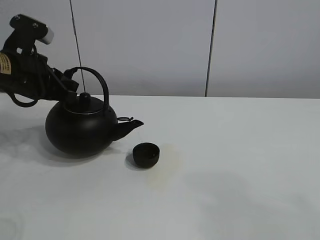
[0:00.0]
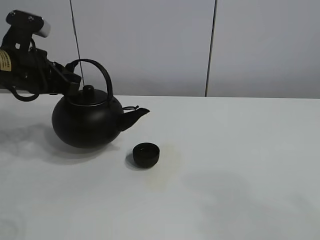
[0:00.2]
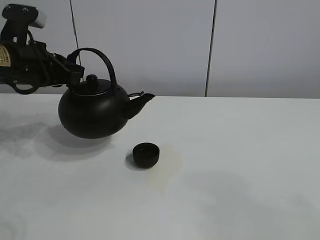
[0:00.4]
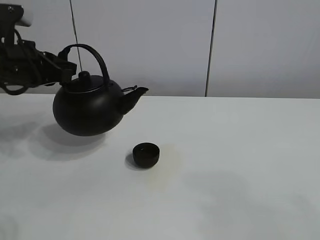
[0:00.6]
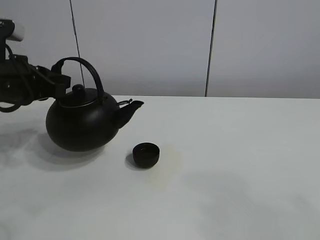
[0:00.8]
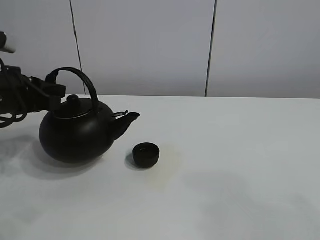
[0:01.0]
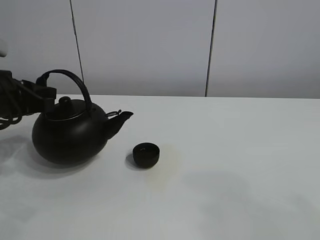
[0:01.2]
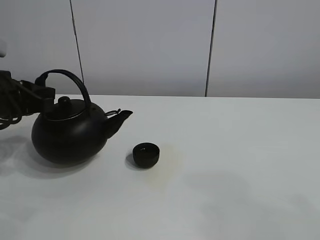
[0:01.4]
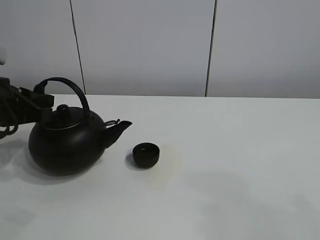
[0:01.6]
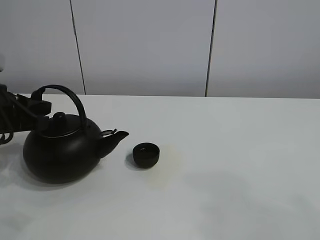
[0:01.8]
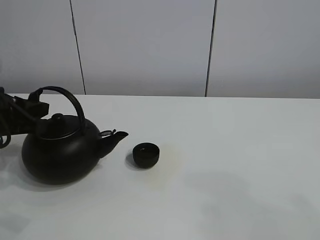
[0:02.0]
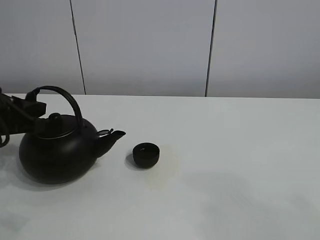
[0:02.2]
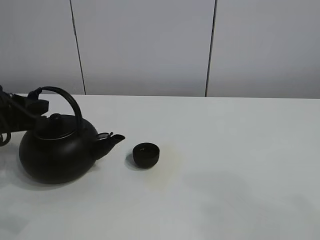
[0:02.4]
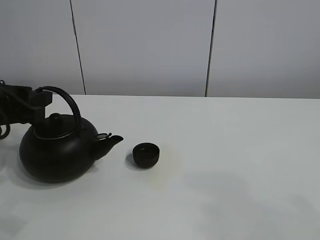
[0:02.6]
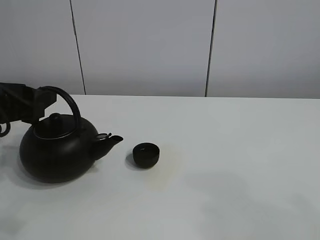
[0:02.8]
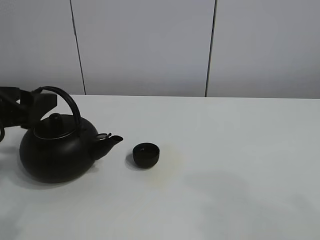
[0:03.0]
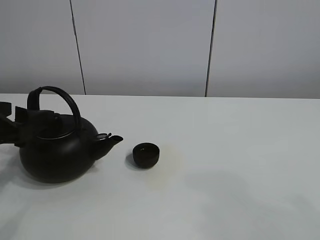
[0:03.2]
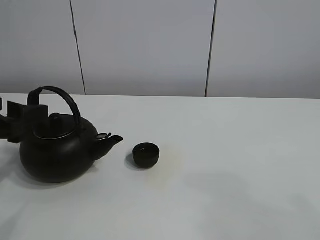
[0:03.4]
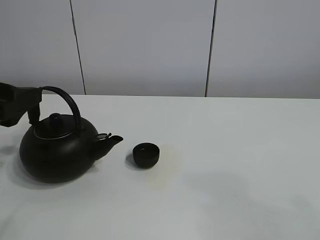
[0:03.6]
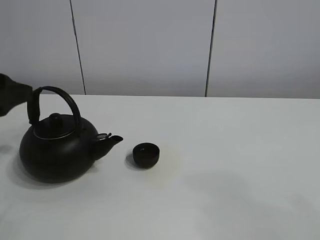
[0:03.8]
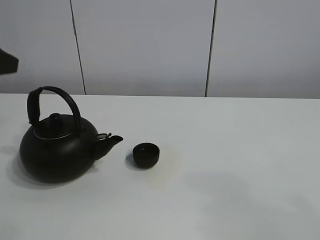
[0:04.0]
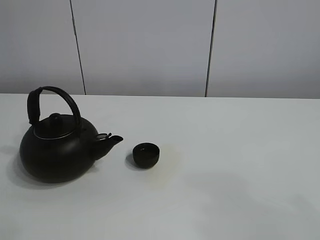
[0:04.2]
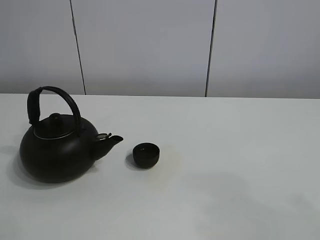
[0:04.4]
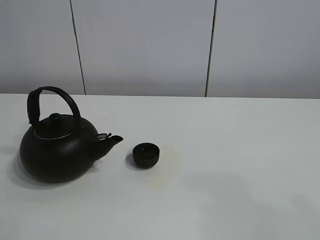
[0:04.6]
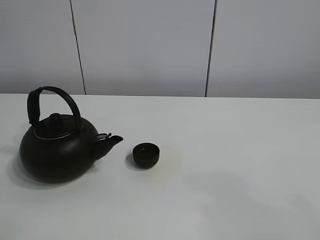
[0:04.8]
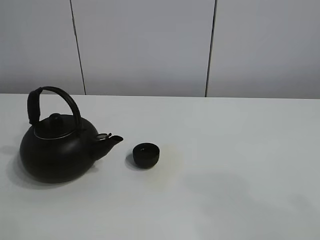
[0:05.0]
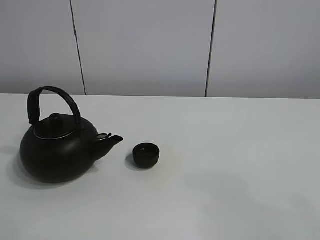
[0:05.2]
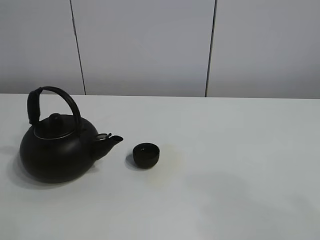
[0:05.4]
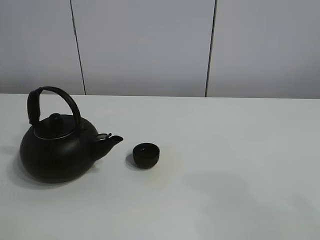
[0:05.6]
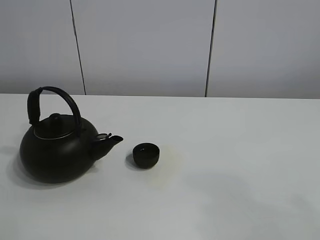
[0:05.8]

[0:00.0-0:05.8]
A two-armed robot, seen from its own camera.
Task of the whole recording: pour tea into the teacup.
0:00.0 to 0:01.4: The left gripper ends up some 5 cm from where it was.
0:01.4 to 0:02.8: The left gripper opens its fingers.
0:02.8 to 0:04.4: The left gripper goes roughly 20 cm upward.

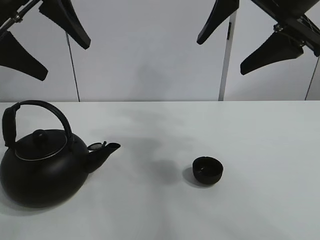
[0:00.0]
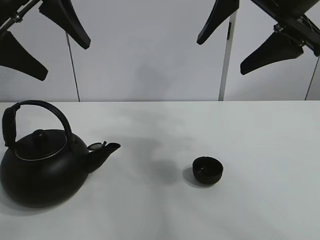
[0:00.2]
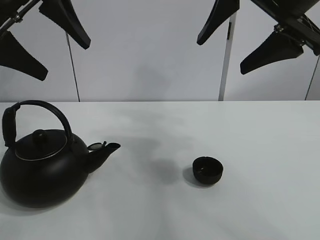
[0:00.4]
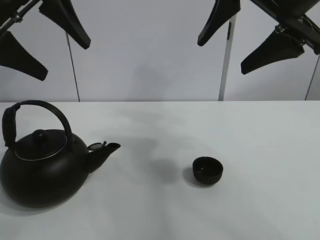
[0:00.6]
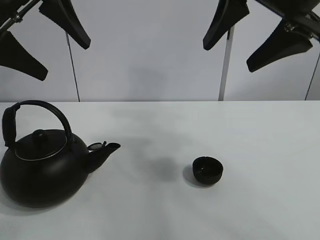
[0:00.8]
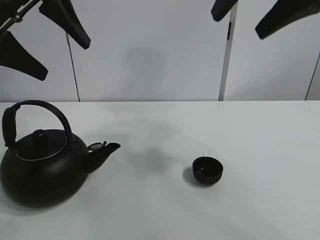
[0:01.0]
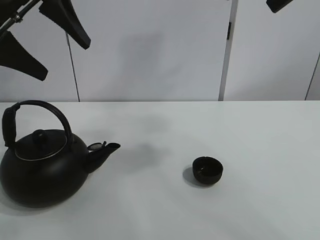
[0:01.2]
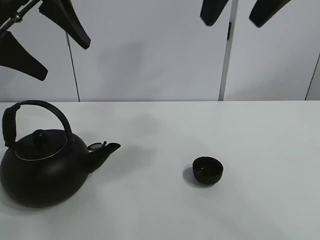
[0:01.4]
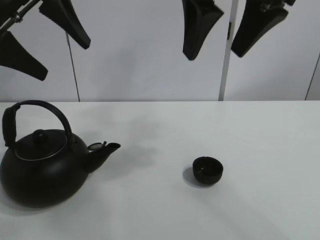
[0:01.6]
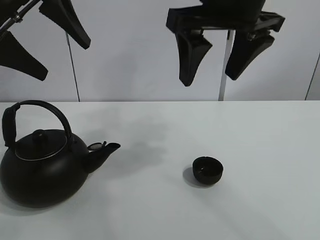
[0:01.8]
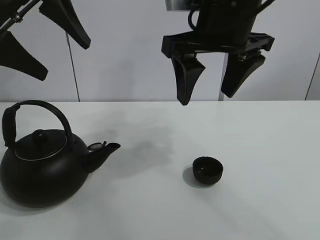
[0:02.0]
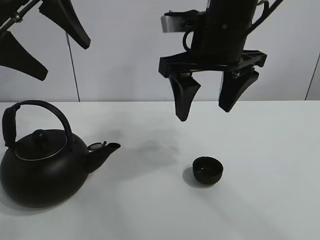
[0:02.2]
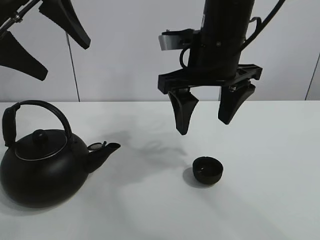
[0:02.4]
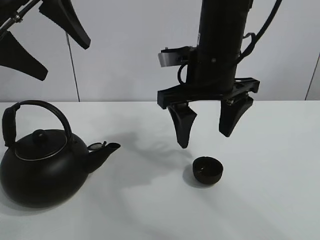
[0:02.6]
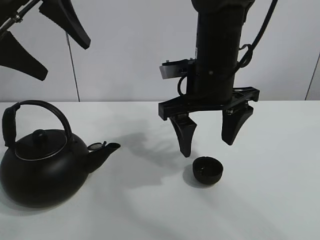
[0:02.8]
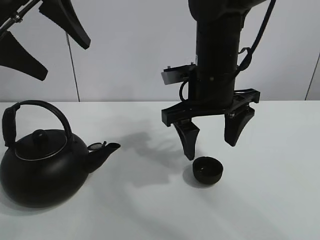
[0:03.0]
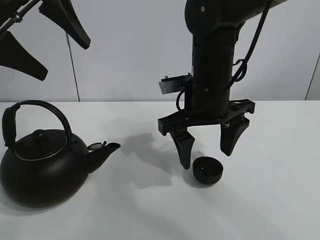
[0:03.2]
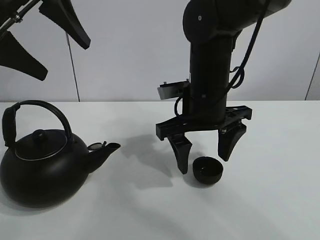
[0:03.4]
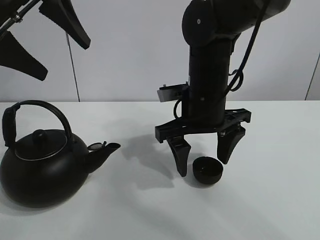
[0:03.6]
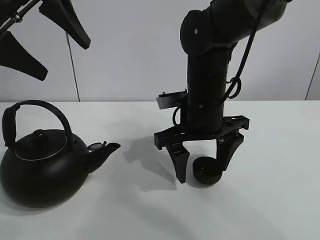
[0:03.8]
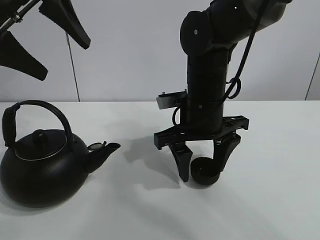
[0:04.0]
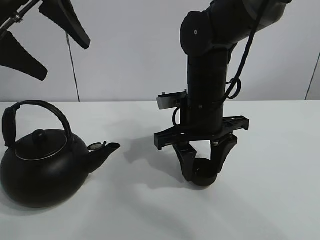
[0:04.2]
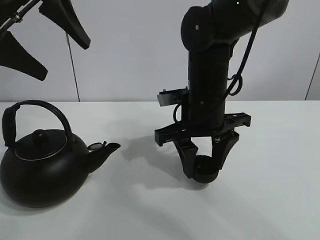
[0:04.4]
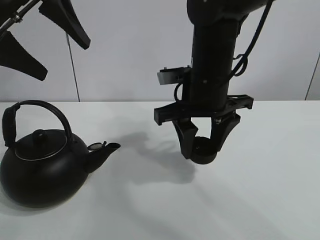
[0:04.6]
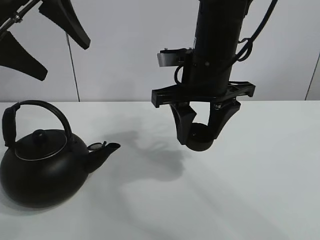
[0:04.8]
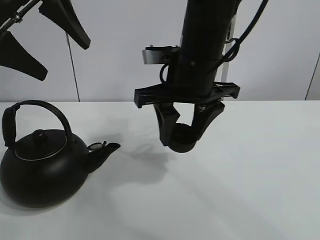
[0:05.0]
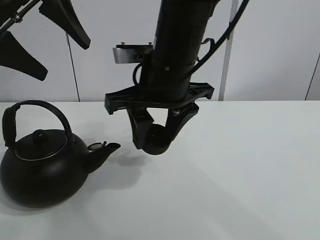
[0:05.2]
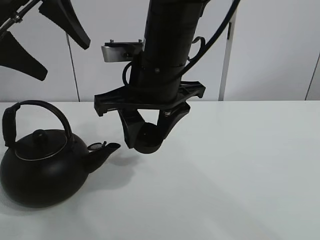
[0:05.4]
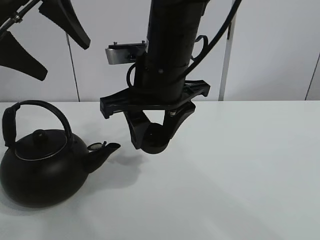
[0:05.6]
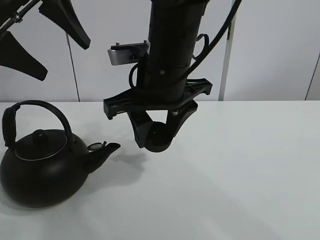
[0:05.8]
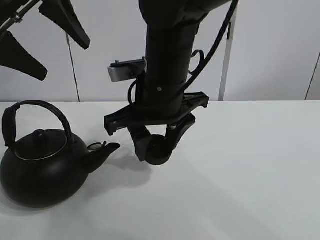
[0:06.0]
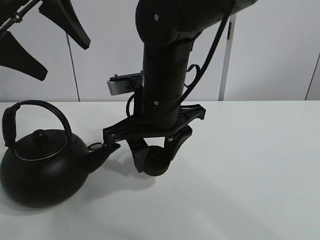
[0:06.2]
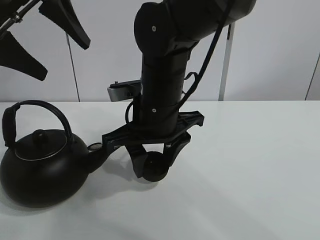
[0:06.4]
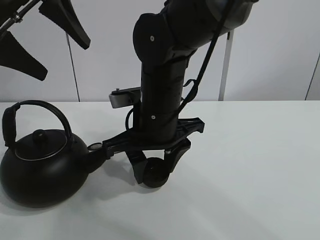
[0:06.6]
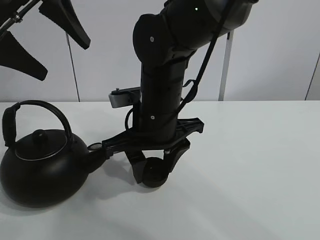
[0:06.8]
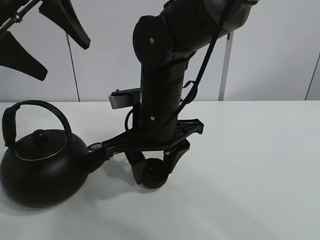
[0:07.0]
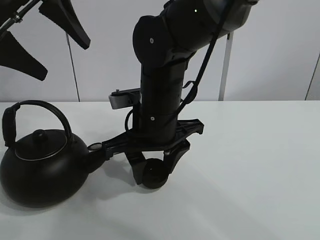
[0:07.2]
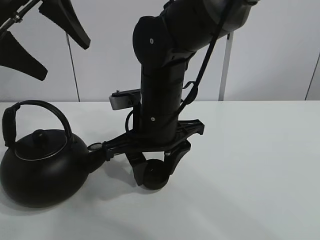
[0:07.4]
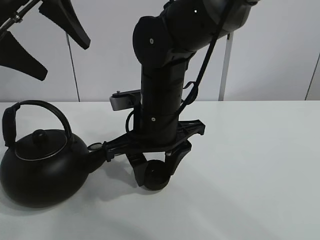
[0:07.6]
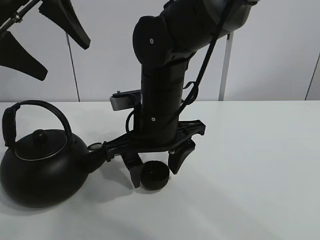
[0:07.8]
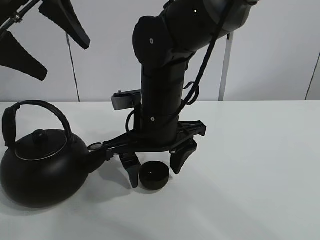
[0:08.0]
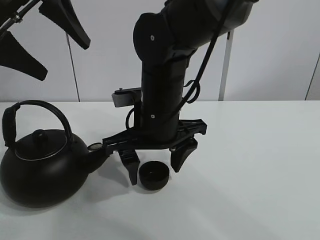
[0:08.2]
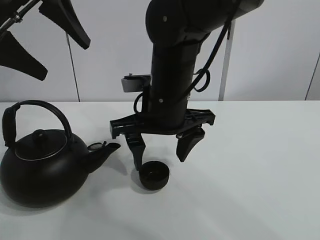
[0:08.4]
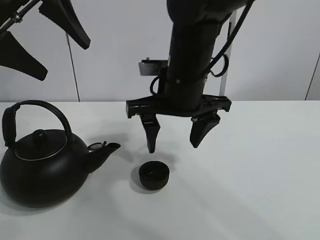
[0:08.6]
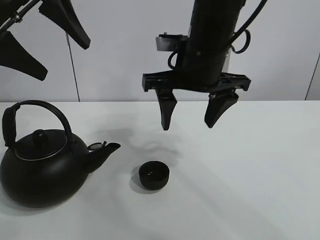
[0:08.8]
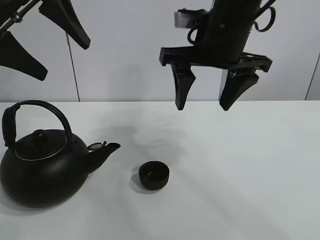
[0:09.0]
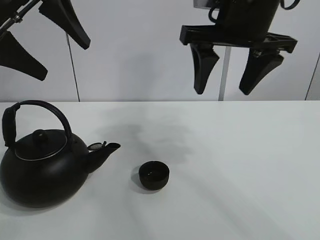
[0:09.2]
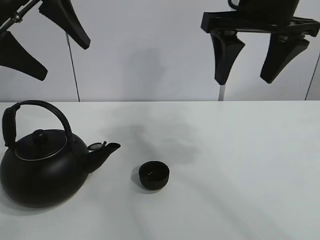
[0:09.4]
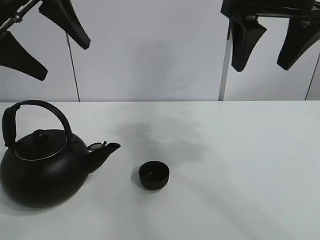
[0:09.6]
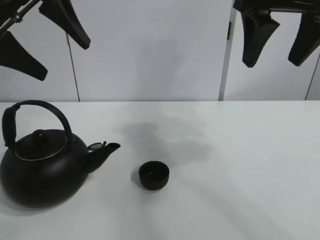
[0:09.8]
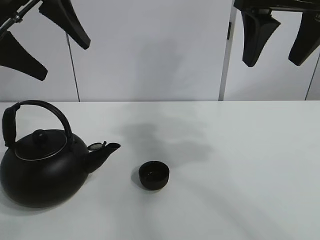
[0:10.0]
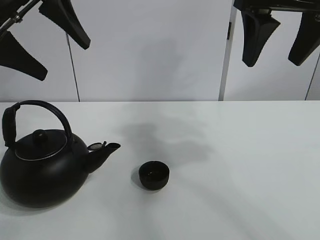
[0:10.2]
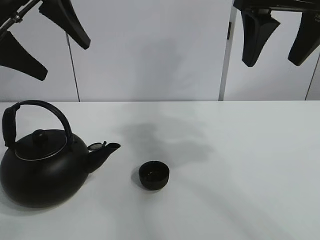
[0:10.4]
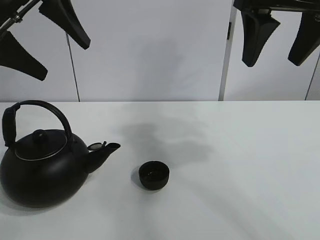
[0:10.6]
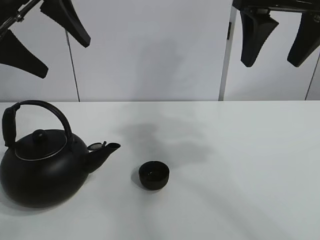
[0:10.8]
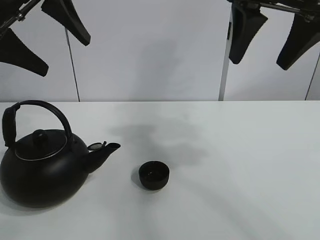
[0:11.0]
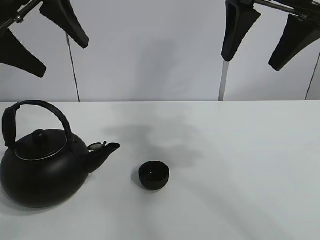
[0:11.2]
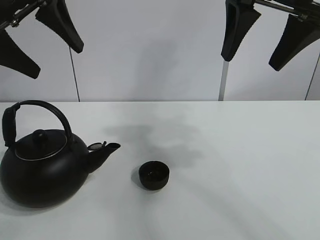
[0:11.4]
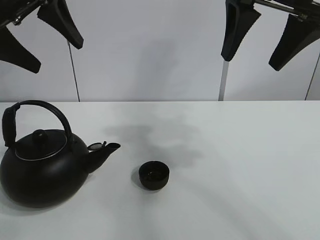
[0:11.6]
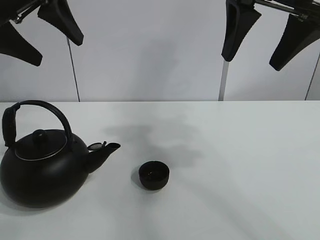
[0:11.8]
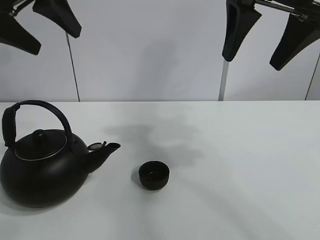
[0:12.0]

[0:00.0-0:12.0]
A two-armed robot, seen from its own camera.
Task of the whole recording: pour tea into the teacup.
Step, 0:00.0 to 0:04.0: Pick up the teacup with the right gripper.
Step, 0:04.2 to 0:08.0: Place the teacup in the center of view with the right gripper.
0:01.6 to 0:03.0: The right gripper is displaced downward by some 15 cm.
0:03.0 to 0:04.4: The right gripper closes.
0:04.4 to 0:06.0: The right gripper moves to the left, approximately 5 cm.
0:06.0 to 0:07.6: The grippers make only small movements.
0:07.6 to 0:09.0: The right gripper moves upward and to the right, some 15 cm, and opens its fingers.
0:09.0 to 0:10.4: The right gripper travels to the right and upward by roughly 10 cm.
0:10.4 to 0:12.0: The grippers make only small movements.

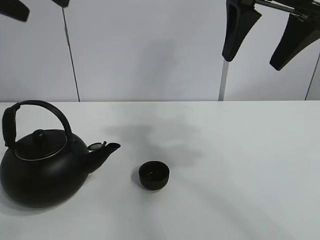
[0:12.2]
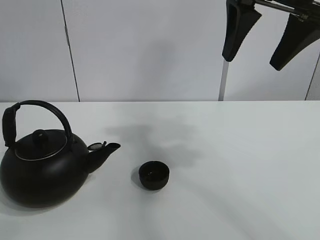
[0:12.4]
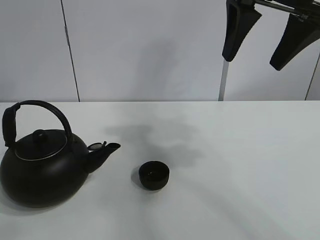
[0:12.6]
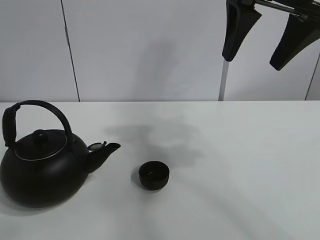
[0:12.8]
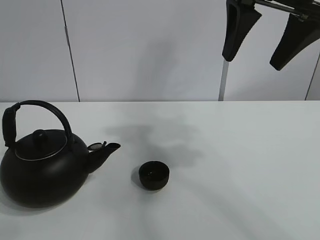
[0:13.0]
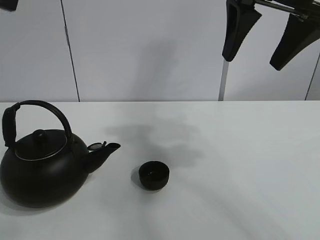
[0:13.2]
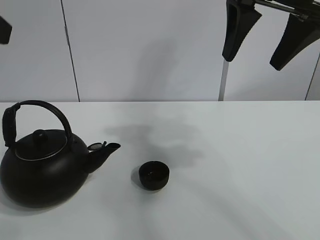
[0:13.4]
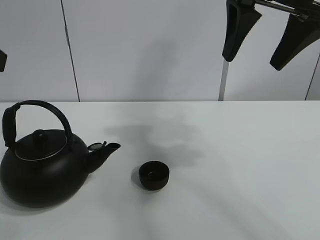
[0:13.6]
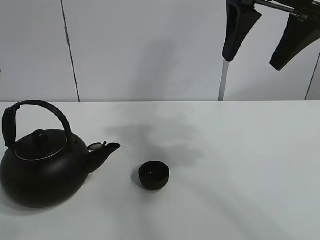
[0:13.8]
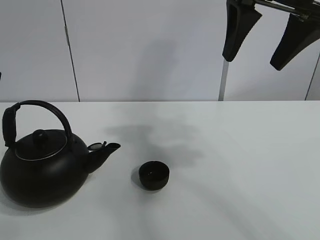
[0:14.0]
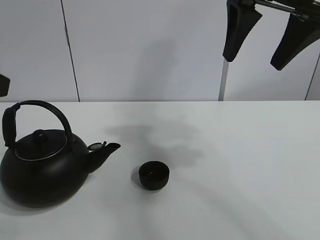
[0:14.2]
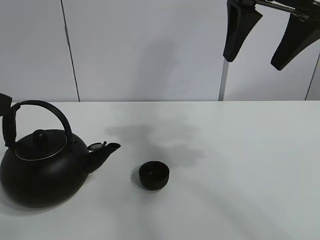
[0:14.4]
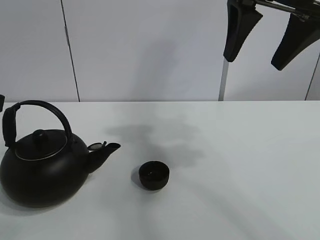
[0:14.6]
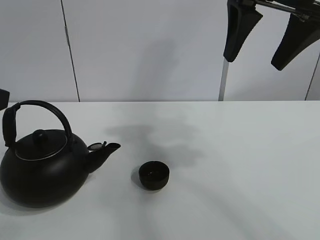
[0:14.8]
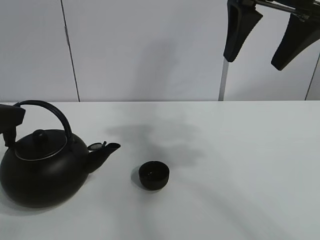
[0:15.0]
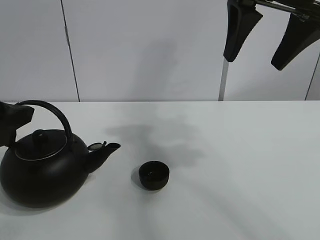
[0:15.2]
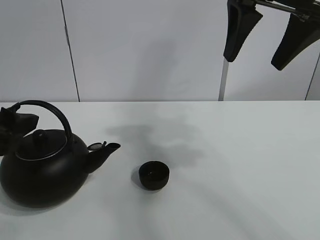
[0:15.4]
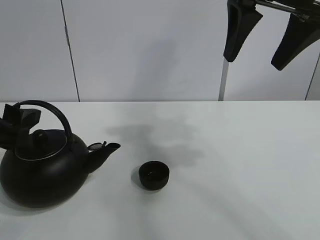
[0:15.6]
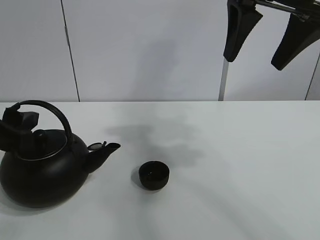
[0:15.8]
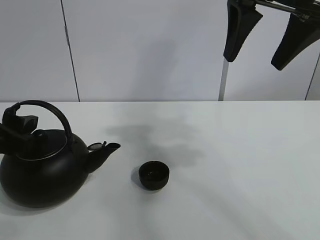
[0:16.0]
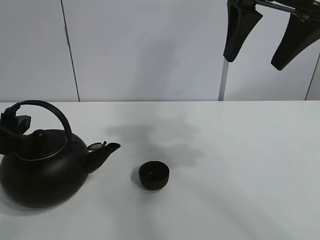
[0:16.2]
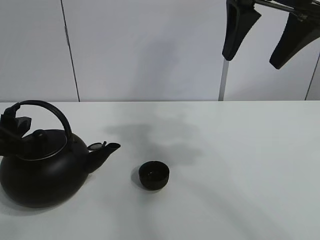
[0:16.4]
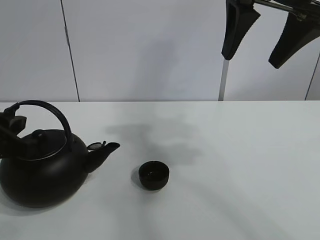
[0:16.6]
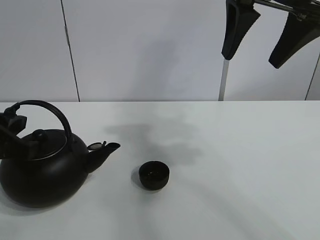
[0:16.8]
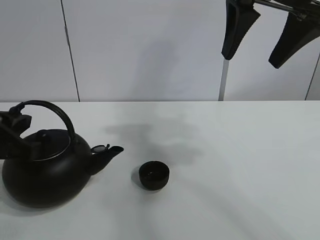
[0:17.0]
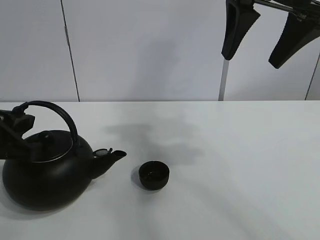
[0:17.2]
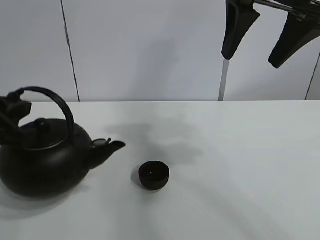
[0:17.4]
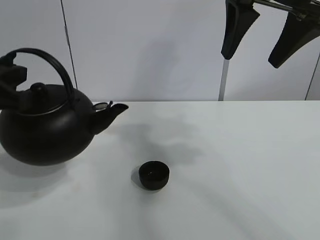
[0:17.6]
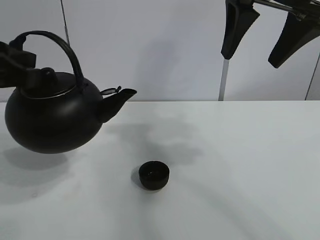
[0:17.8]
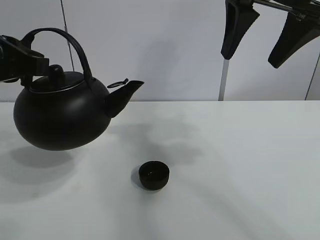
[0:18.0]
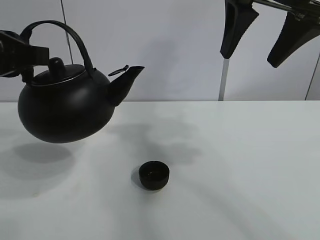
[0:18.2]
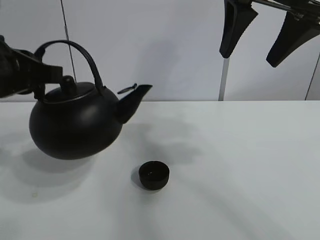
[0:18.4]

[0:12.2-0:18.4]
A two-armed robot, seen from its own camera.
Task of the whole recording: pour tea into the teacup.
Step, 0:12.2 to 0:17.0: Pick up the teapot with the left gripper.
0:12.2 to 0:13.8: The left gripper is displaced backward and downward by some 15 cm.
0:13.8 to 0:15.4: The left gripper goes some 10 cm downward.
0:16.8 to 0:18.4: The left gripper shifts about 10 cm upward.
